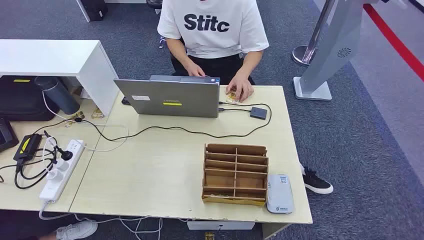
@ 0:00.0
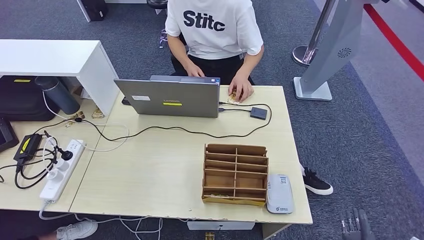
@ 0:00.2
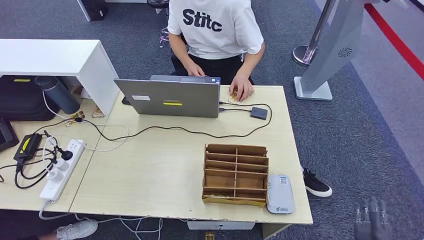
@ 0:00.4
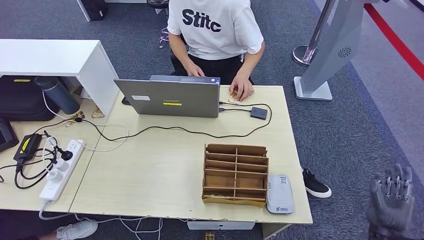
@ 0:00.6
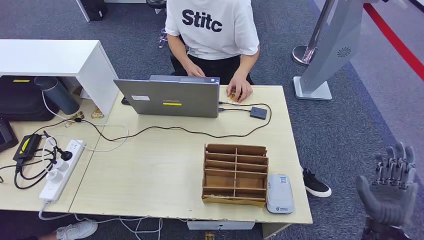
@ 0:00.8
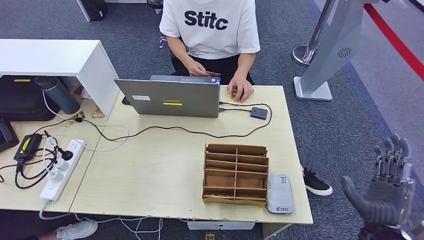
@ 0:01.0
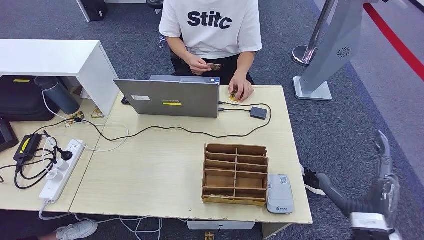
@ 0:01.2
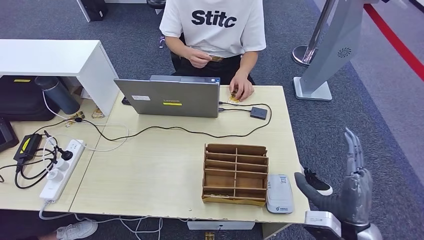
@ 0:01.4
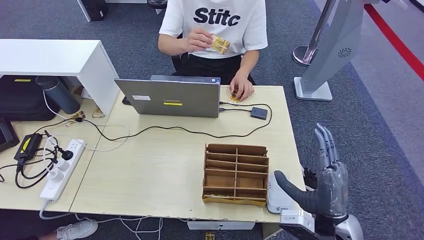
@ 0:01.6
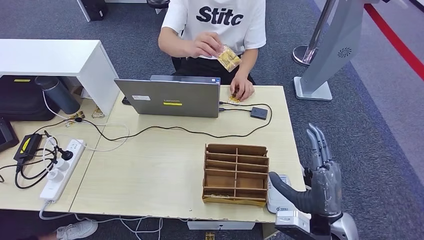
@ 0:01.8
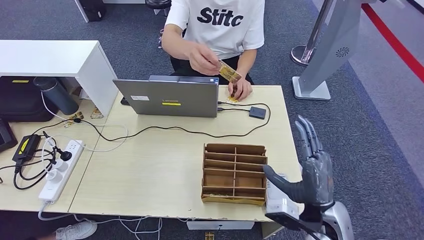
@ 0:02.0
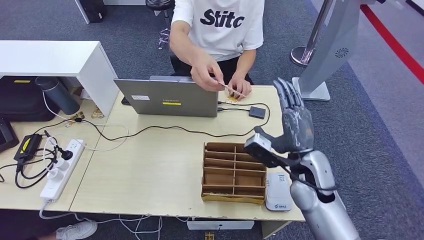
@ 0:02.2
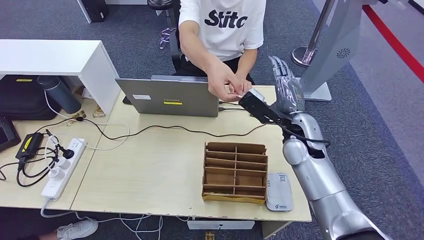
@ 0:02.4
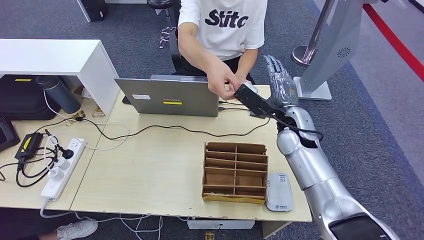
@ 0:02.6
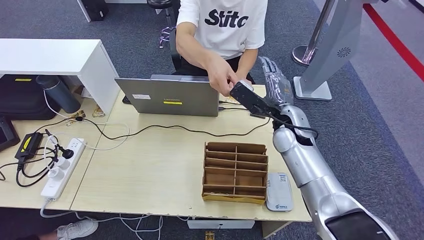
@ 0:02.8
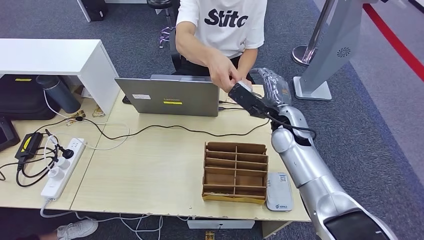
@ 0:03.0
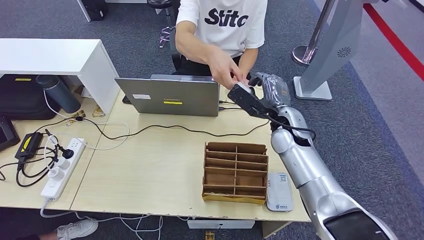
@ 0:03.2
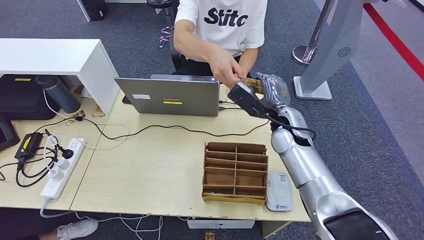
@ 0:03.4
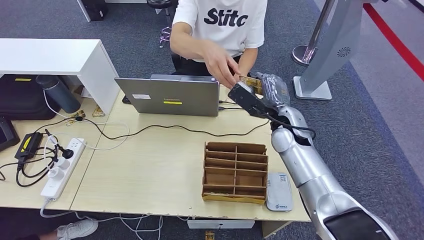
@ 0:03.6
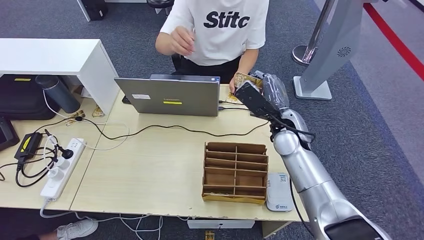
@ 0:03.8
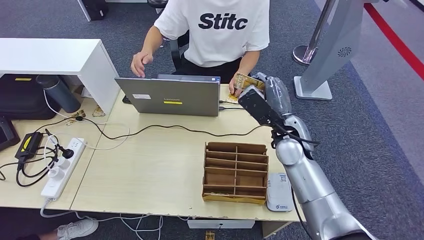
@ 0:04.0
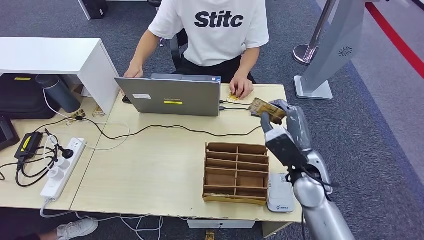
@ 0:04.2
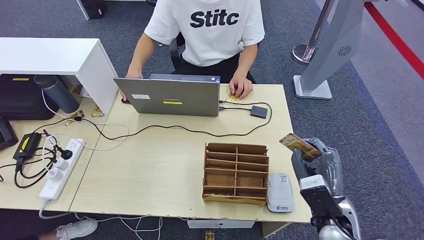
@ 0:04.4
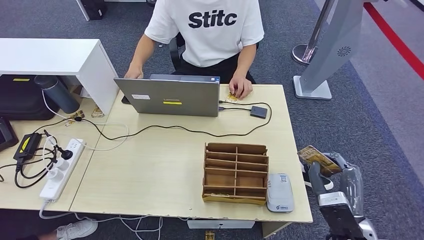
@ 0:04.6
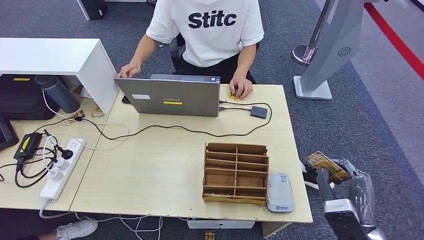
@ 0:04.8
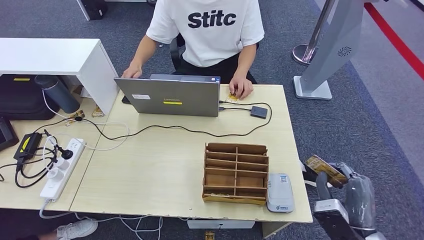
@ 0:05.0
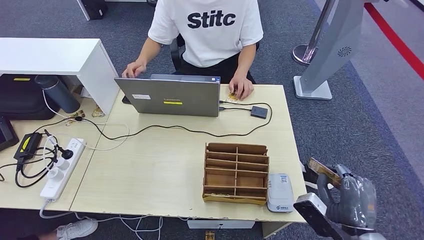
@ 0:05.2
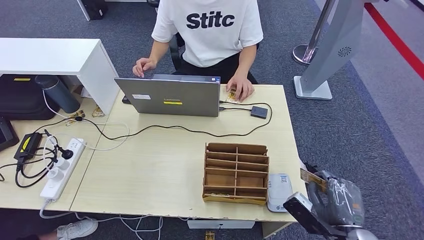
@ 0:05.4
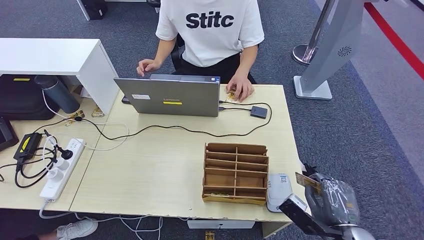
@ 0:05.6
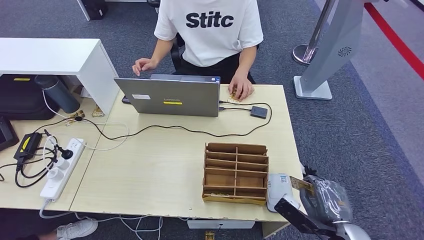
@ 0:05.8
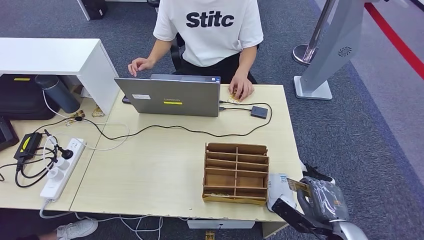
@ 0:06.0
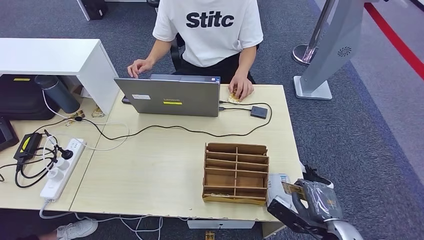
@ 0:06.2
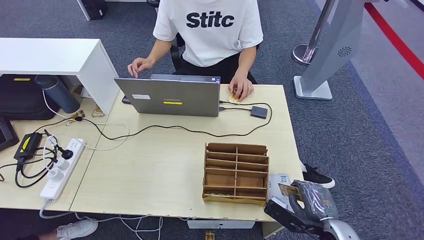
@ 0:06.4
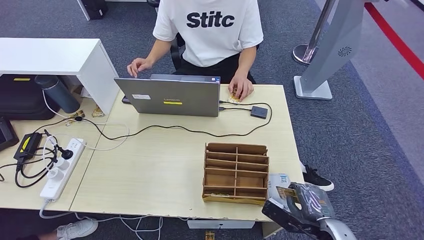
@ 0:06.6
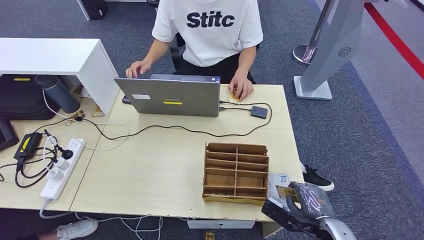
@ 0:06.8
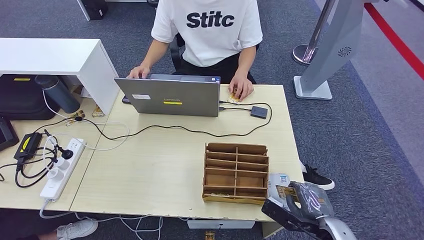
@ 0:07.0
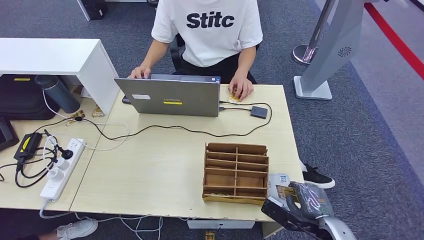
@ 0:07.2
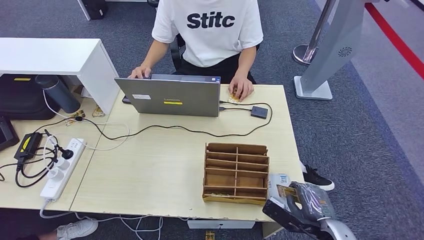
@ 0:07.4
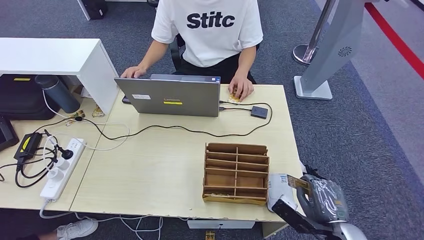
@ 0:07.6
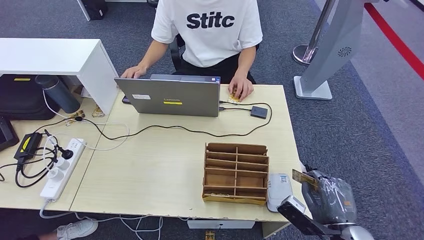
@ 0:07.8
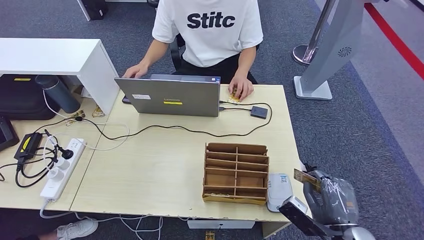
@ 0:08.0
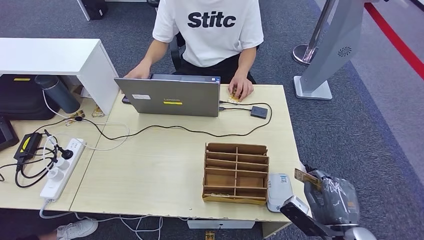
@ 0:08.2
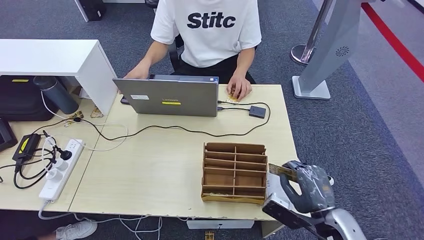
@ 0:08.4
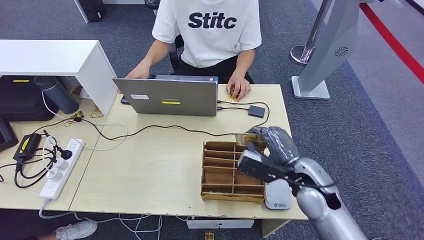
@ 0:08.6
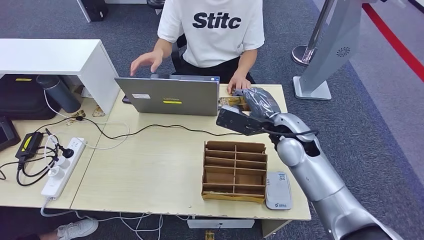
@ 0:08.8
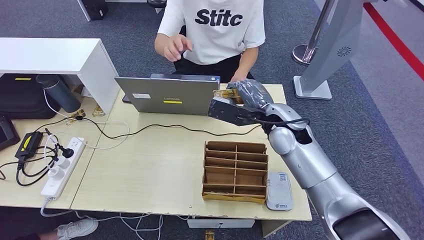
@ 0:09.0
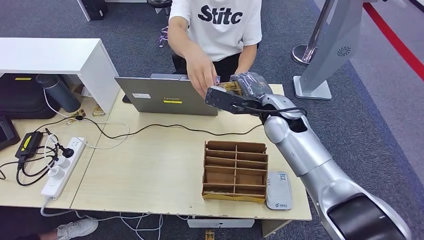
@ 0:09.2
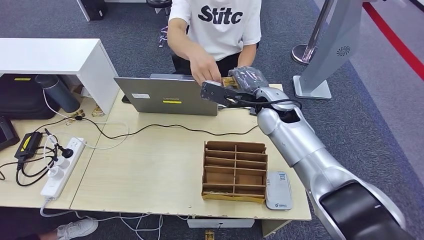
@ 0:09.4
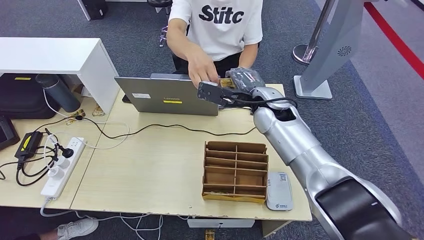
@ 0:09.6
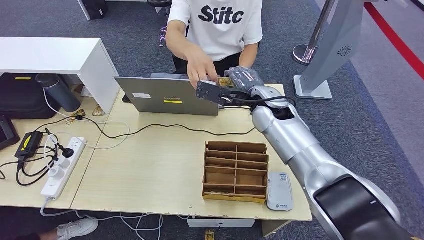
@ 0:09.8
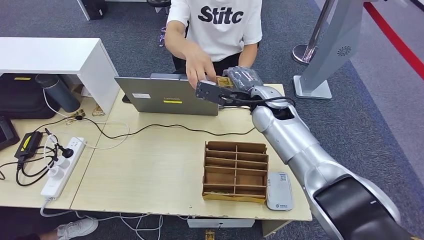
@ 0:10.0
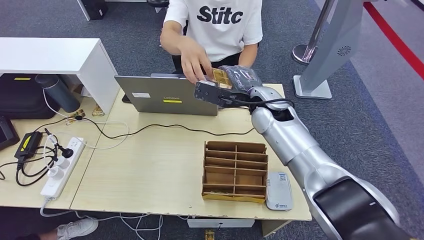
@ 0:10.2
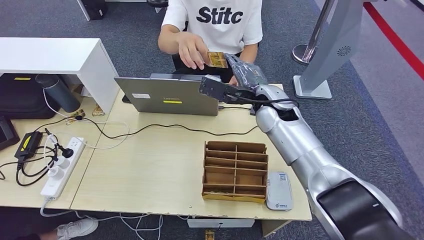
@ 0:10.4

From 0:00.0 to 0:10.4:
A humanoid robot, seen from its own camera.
Step, from 0:00.0 to 0:03.4: Take the ID card from the person's hand.
Step, from 0:03.6 to 0:07.0: Place the ID card on the card reader.
Step, from 0:07.4 to 0:10.4: Hand the ID card to the person.
From 0:03.0 to 0:04.4: The right hand heads backward, covering some 20 cm.
From 0:04.4 to 0:06.0: The right hand heads backward, covering roughly 5 cm.
From 0:06.0 to 0:07.4: The hands make only small movements.
From 0:09.0 to 0:10.4: The right hand shifts by approximately 5 cm.

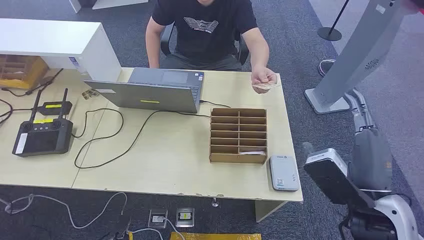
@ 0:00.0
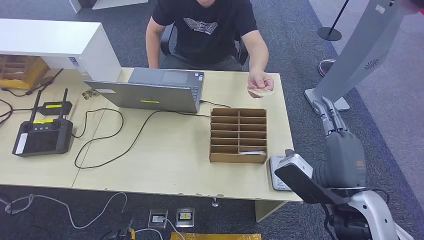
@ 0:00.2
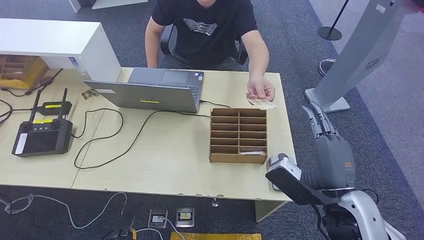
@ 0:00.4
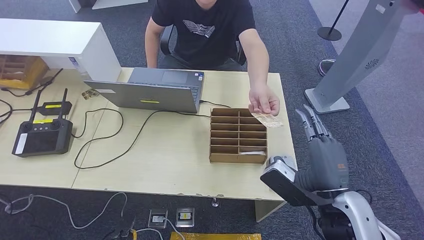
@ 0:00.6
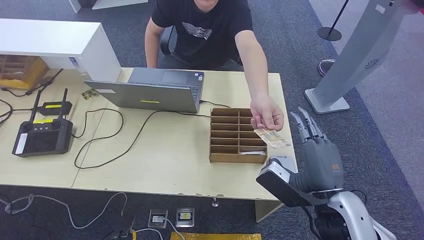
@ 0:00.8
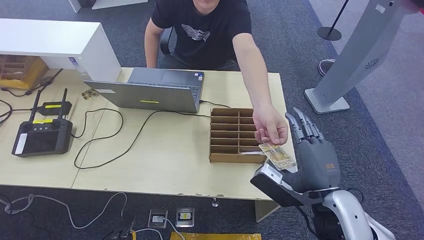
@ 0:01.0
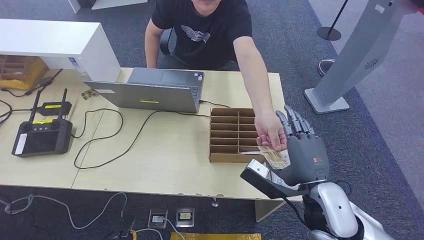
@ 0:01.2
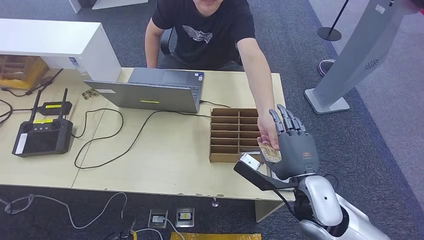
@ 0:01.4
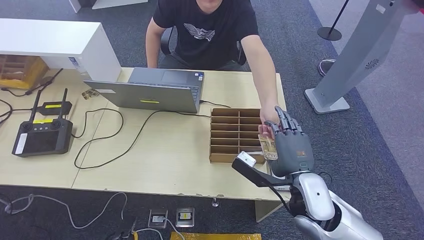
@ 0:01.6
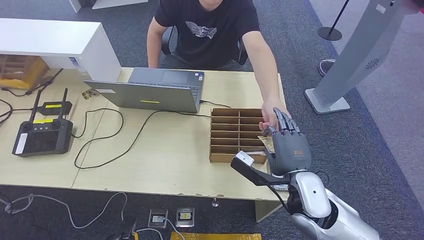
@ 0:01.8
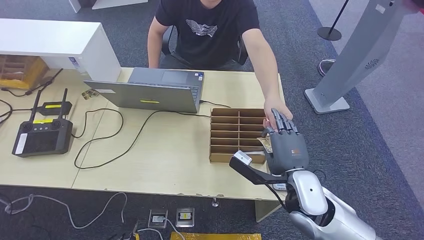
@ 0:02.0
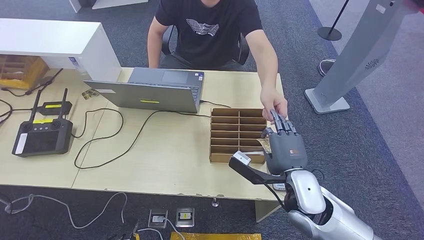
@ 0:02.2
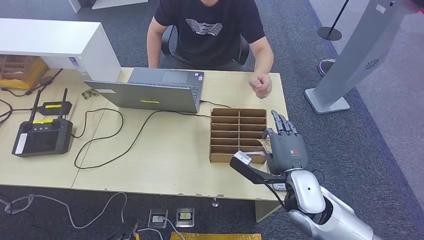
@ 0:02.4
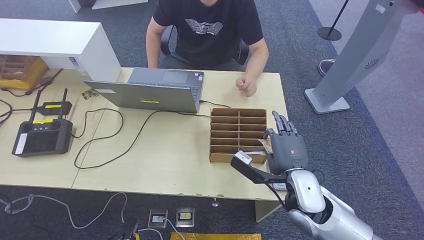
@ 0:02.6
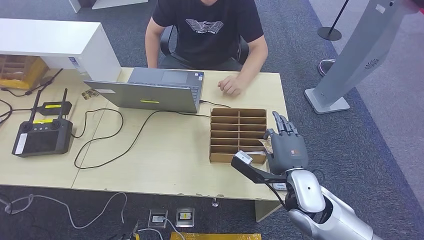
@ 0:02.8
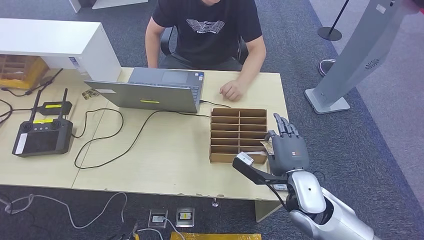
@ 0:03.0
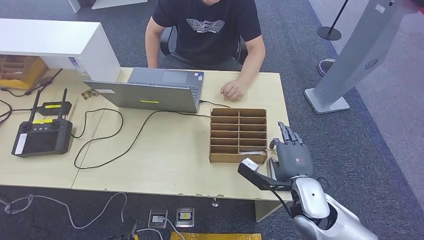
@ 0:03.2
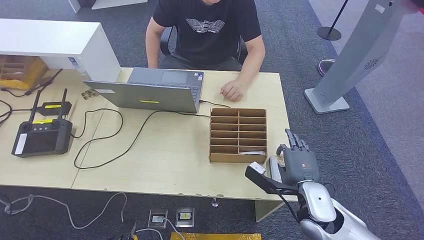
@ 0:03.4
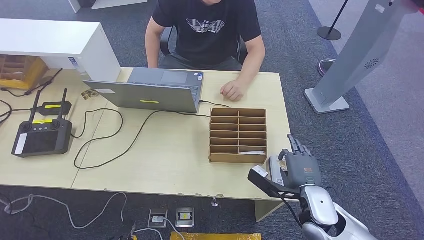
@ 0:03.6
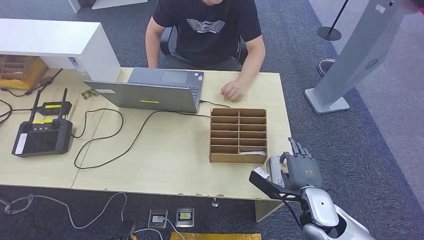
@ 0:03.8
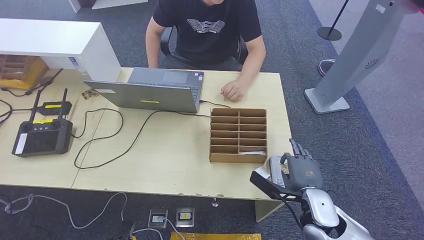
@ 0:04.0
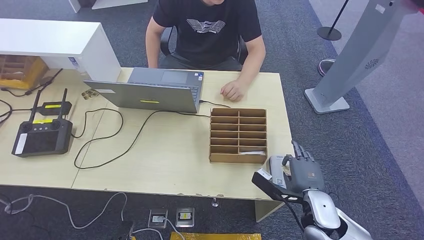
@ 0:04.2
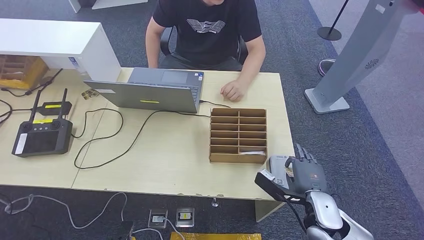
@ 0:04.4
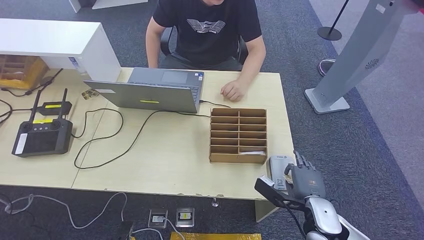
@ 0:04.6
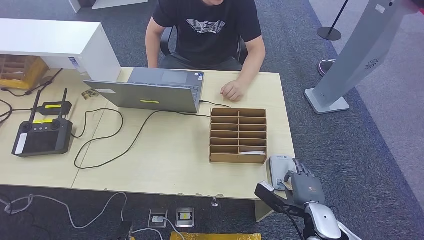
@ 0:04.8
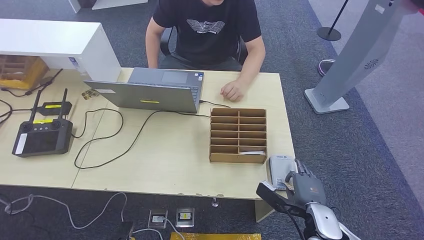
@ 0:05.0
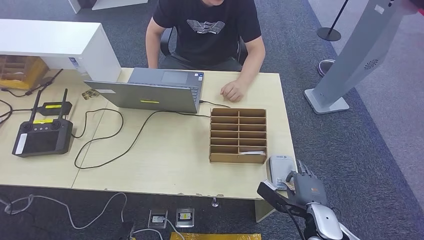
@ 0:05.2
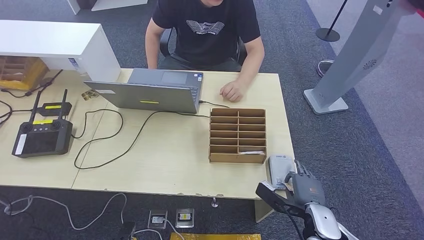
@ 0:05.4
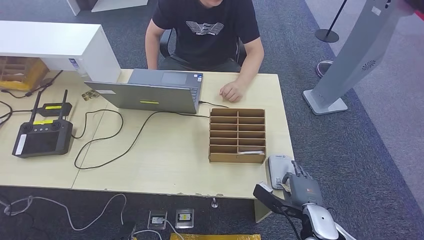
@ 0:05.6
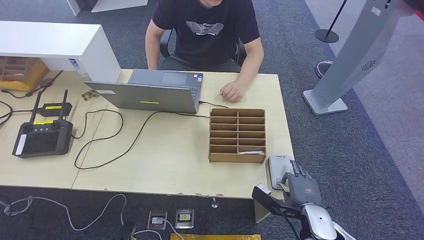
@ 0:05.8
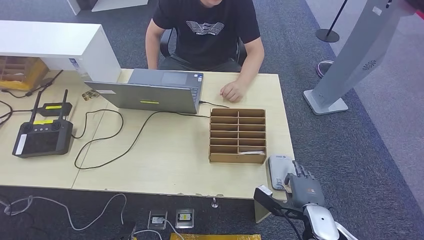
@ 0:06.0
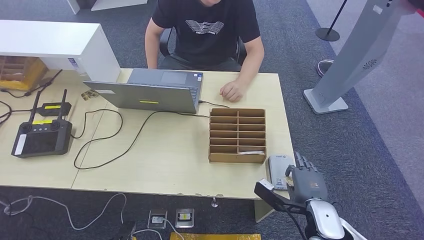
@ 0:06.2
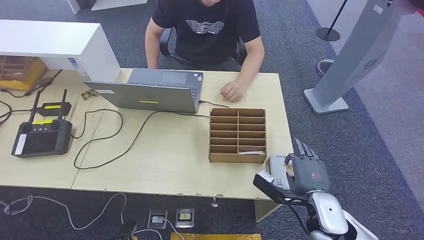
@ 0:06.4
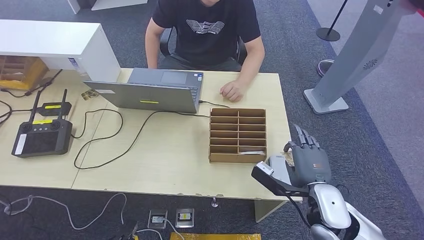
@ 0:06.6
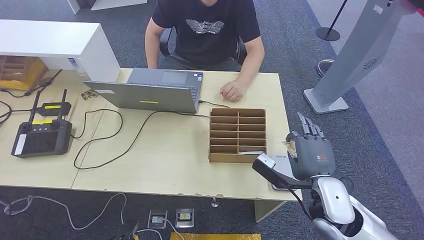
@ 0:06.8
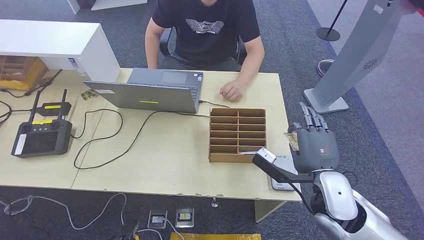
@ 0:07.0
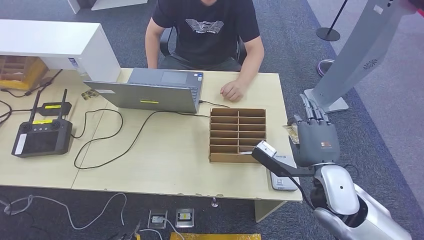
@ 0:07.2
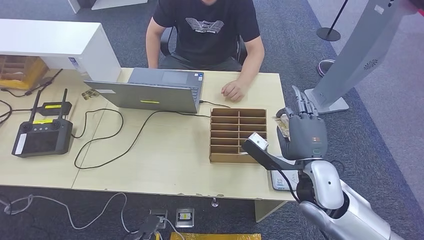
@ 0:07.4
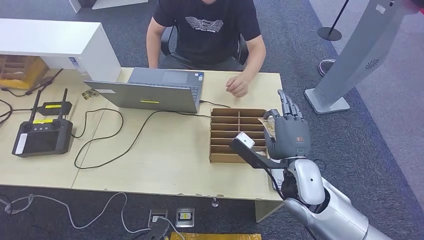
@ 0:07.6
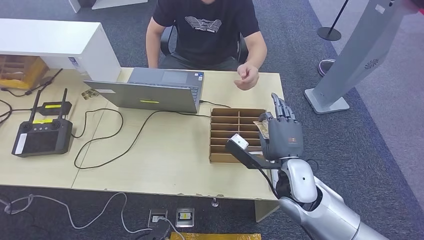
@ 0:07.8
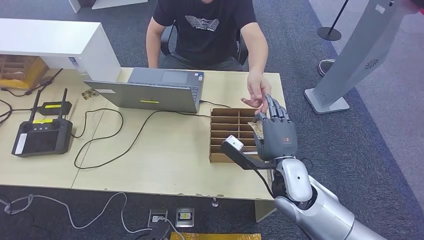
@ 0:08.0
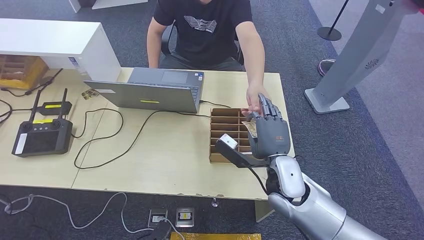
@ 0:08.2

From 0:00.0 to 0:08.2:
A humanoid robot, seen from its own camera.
Step, from 0:00.0 to 0:02.0: Take the ID card from the person's hand.
Step, from 0:02.2 to 0:06.4: Place the ID card on the card reader.
From 0:01.6 to 0:03.2: The hands move only a little.
From 0:03.2 to 0:05.0: The right hand travels downward and to the right by roughly 10 cm.
From 0:05.0 to 0:06.6: The right hand heads upward, covering some 10 cm.
From 0:06.6 to 0:08.2: The left hand heads to the right, covering some 10 cm, while the right hand heads to the left and forward, covering approximately 10 cm.
